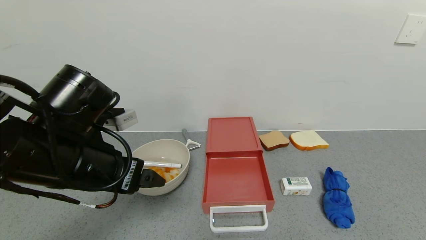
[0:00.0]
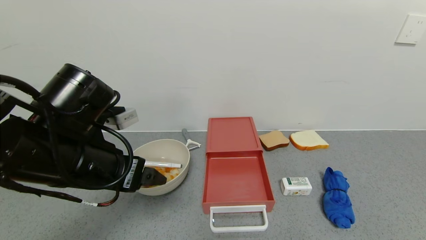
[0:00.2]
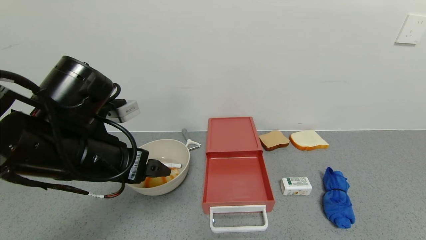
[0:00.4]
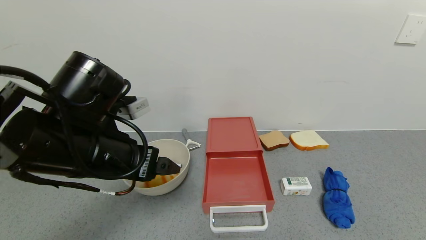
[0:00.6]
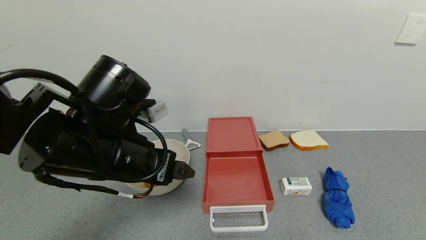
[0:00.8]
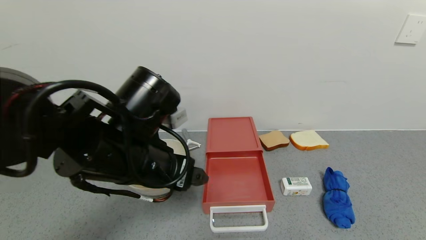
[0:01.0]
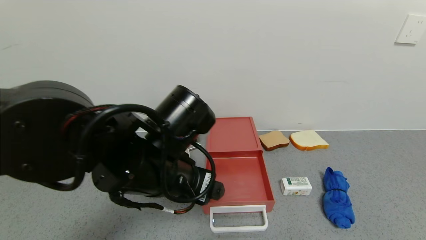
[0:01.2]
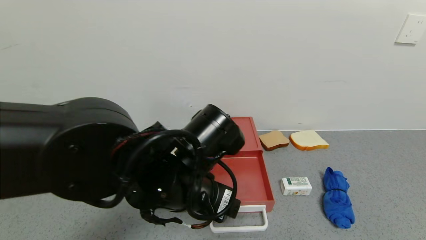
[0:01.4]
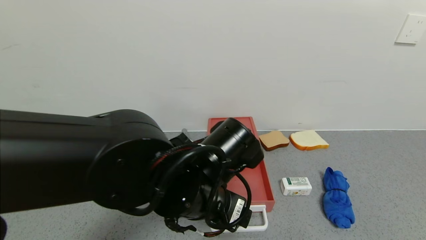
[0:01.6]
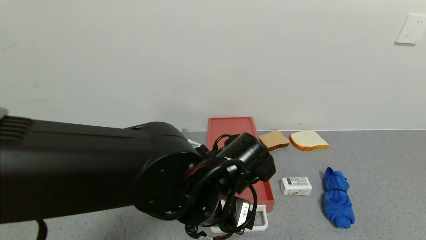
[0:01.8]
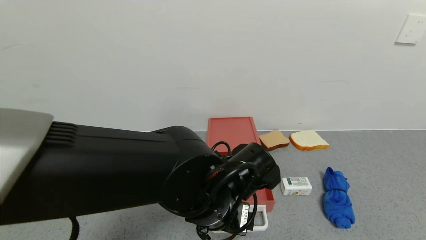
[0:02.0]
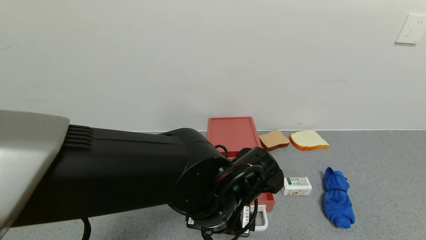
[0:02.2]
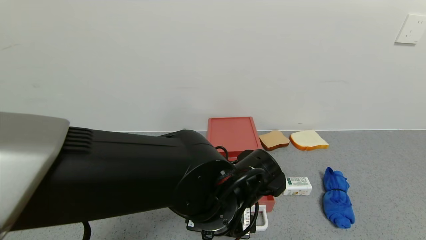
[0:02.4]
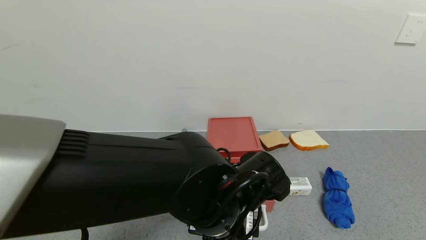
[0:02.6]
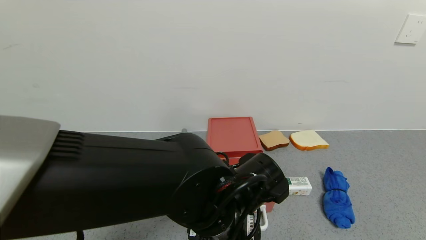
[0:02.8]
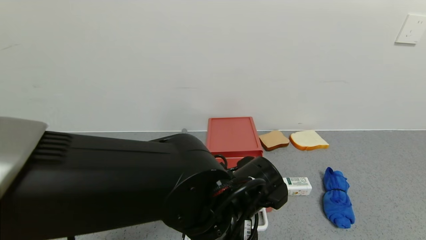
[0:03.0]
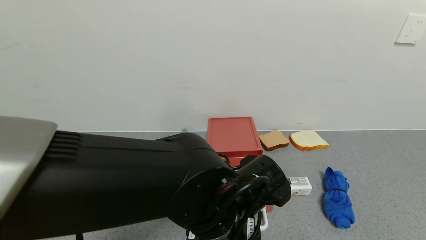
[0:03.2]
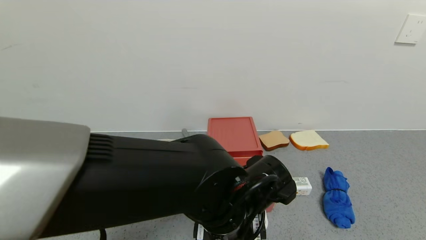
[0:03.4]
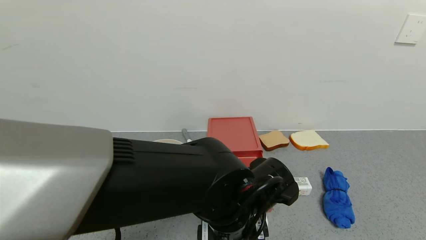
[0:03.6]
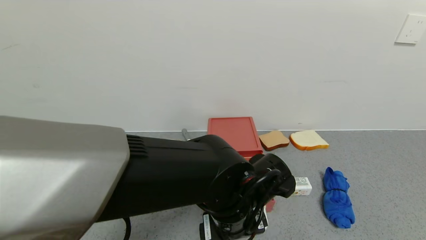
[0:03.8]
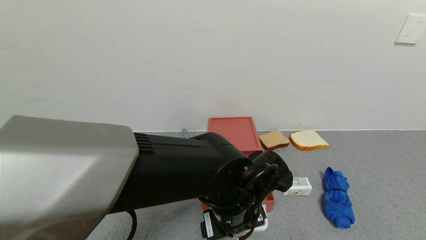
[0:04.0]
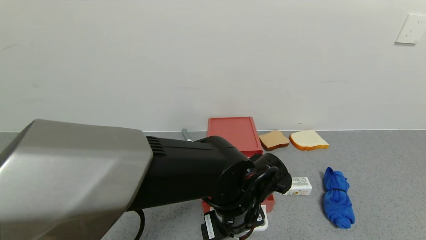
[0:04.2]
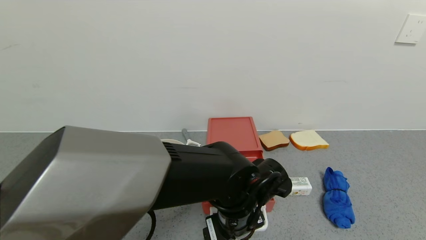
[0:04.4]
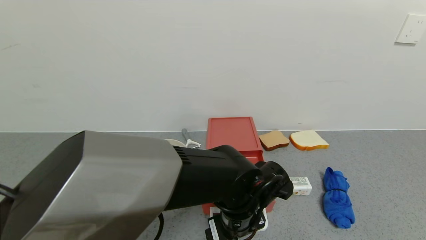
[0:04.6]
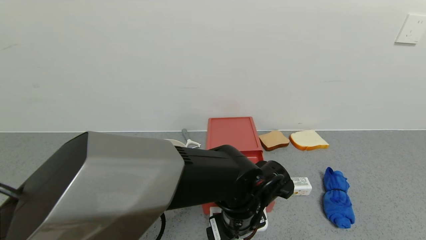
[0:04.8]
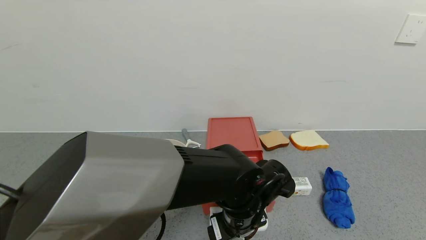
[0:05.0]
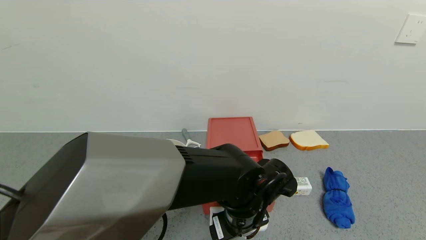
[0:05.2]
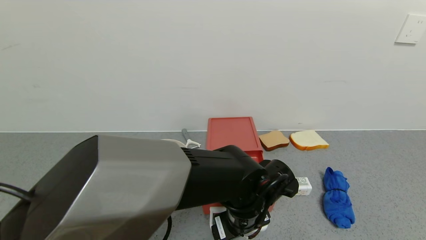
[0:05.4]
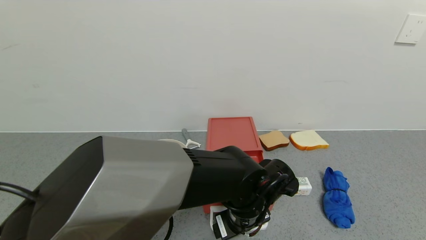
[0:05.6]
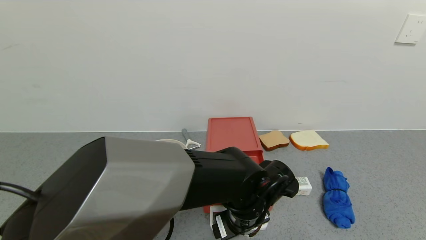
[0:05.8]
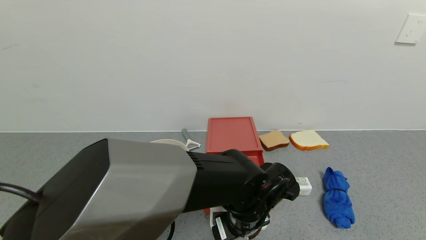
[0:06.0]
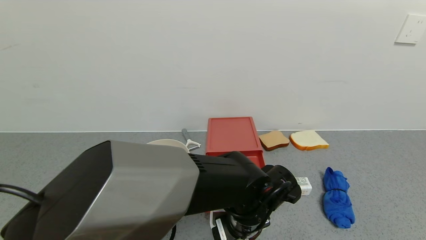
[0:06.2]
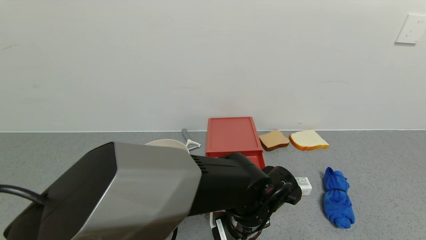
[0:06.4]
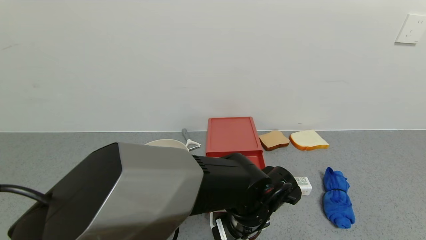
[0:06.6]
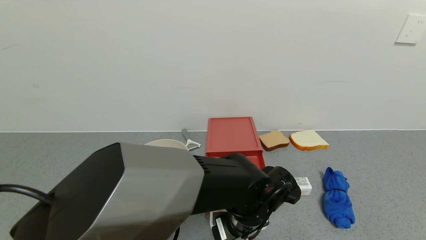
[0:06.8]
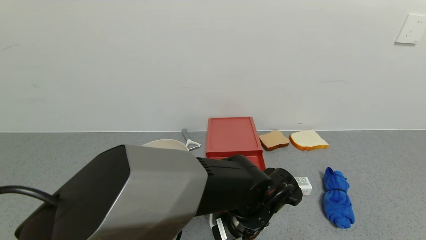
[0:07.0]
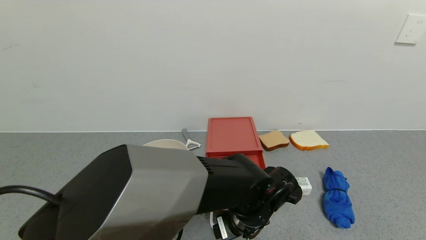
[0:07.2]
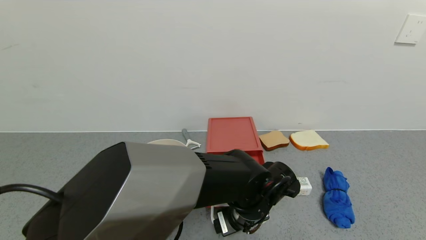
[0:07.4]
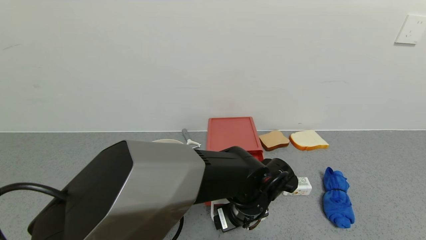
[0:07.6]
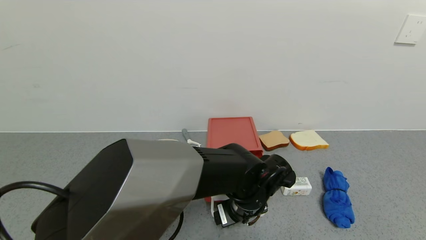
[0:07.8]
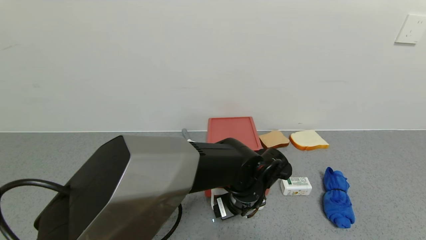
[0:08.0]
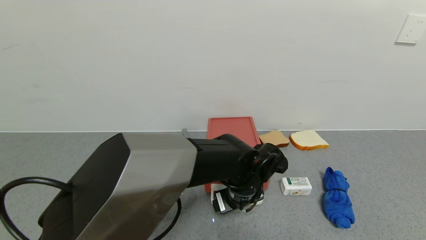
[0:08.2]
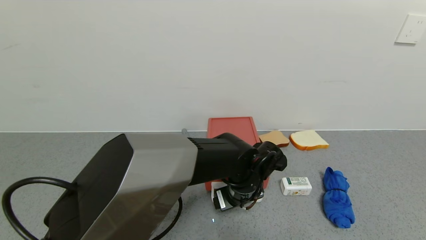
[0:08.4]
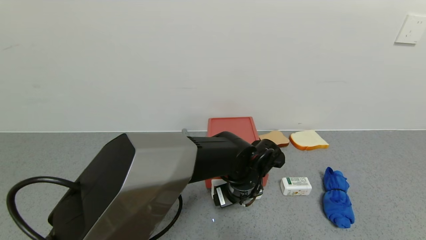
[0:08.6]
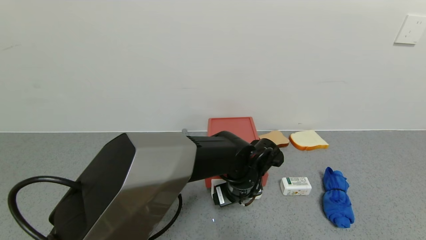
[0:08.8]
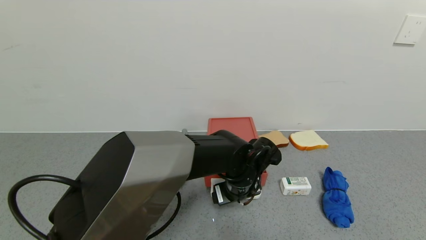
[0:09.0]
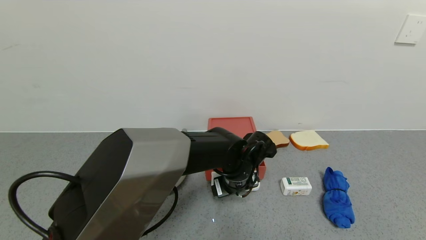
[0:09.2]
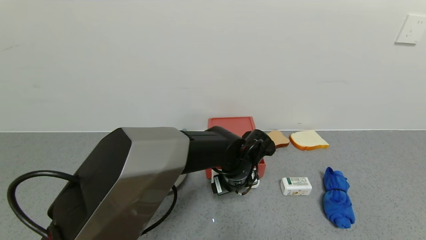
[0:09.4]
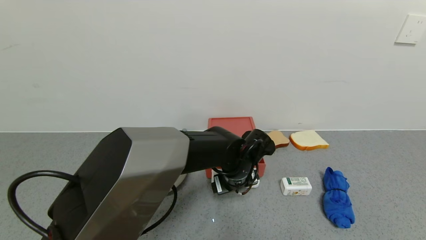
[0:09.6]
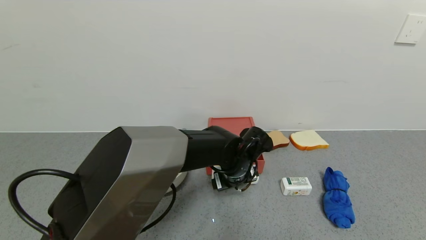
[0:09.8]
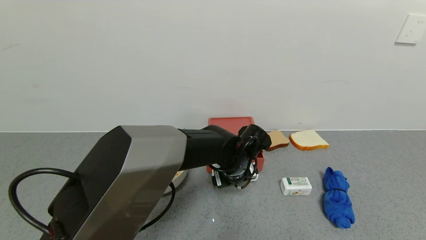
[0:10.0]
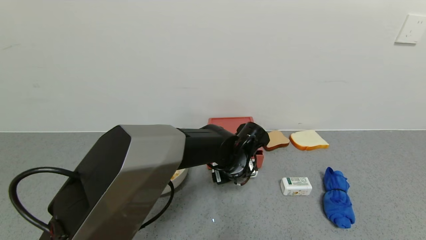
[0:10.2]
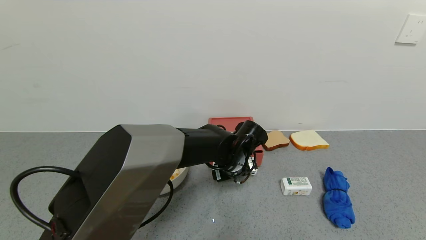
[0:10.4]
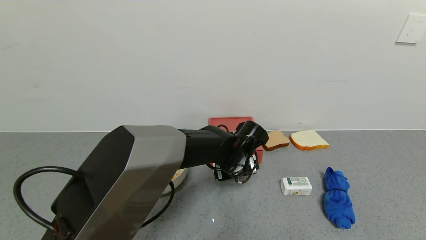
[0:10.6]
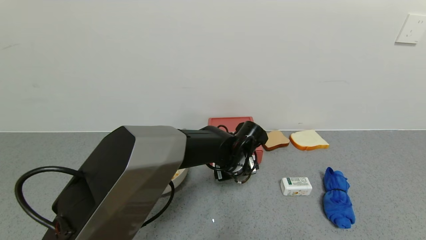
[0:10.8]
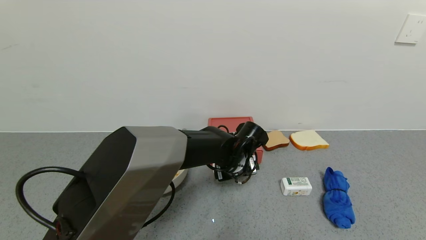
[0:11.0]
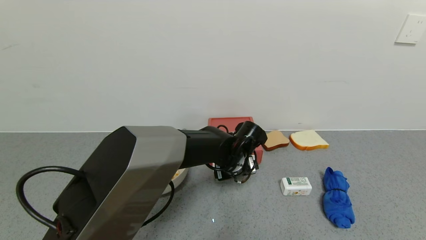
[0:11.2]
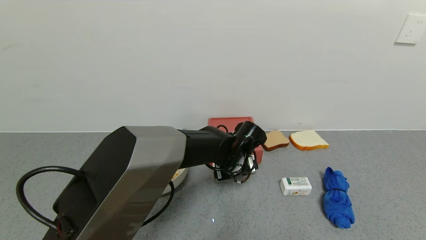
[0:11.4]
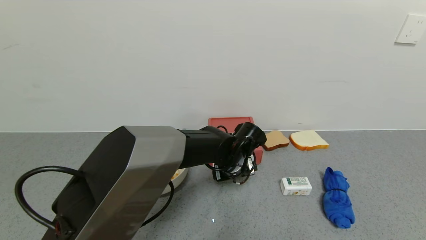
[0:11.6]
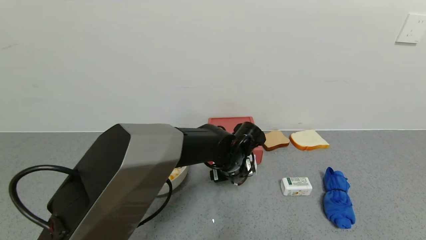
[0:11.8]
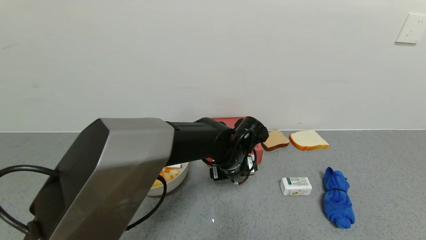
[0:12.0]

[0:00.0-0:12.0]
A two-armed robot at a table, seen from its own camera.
Task of the whole recording: use the gripper to open the drawer and close the red drawer.
Step, 0:00.0 to 0:12.0: Close the red drawer with the left gripper.
0:00.0 to 0:01.6: The left gripper shifts about 15 cm to the right.
0:03.0 to 0:04.4: The left gripper ends up roughly 5 cm from where it was.
0:04.4 to 0:07.6: The grippers move only a little.
0:07.6 to 0:09.0: The left gripper is displaced forward by some 5 cm.
0:09.0 to 0:12.0: The grippers make only small movements.

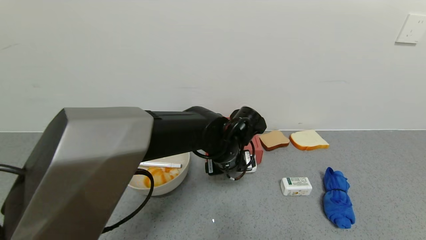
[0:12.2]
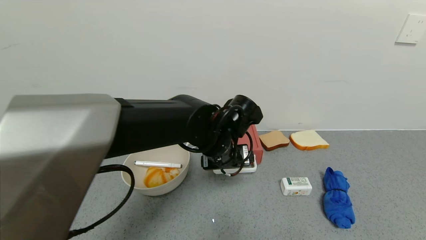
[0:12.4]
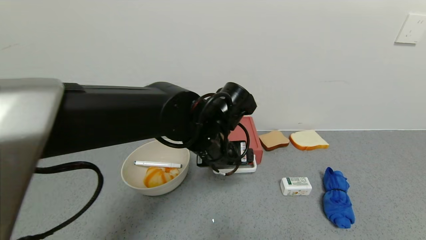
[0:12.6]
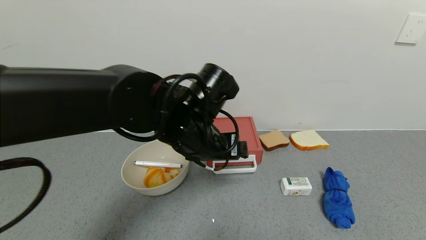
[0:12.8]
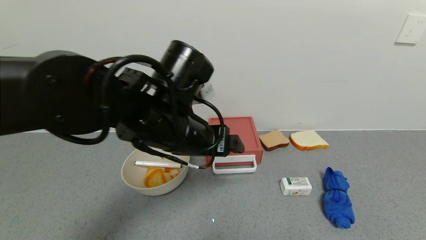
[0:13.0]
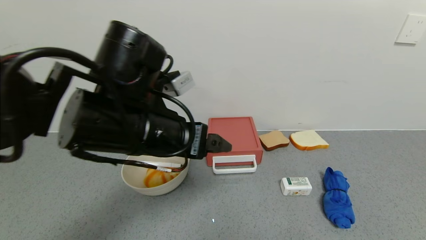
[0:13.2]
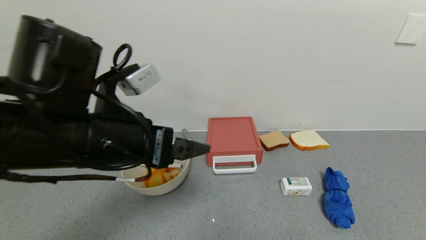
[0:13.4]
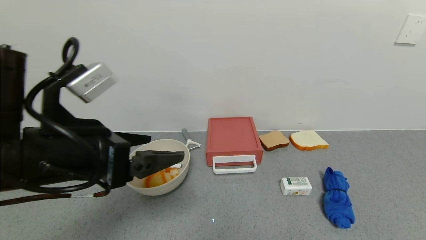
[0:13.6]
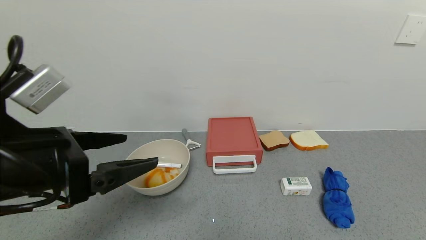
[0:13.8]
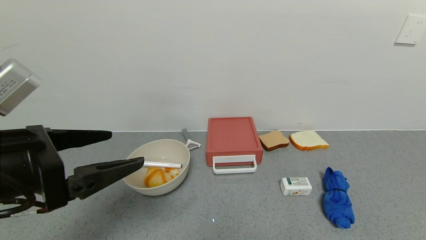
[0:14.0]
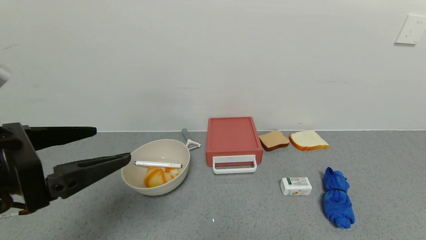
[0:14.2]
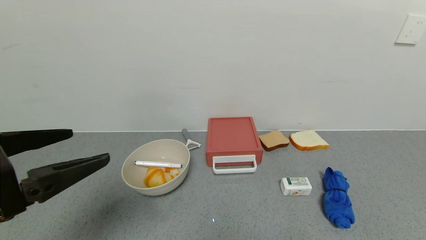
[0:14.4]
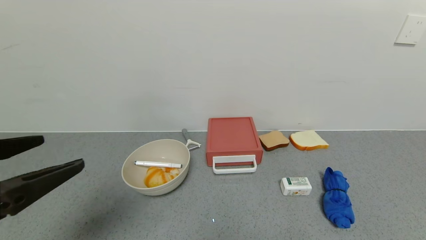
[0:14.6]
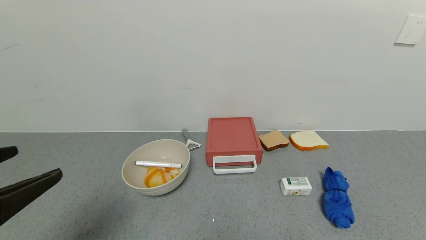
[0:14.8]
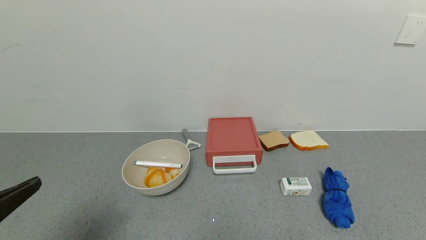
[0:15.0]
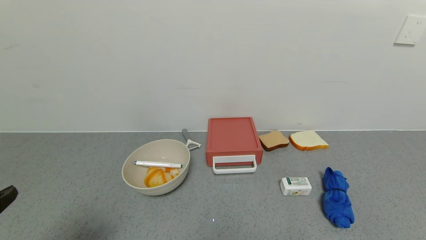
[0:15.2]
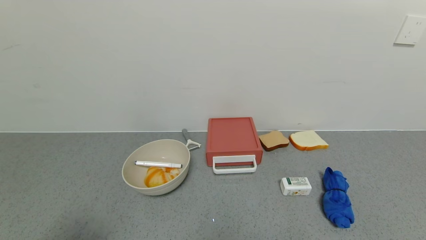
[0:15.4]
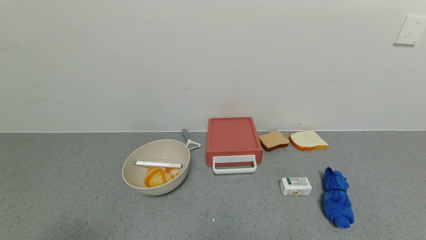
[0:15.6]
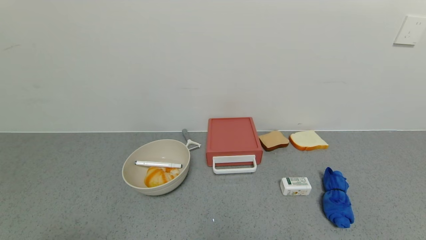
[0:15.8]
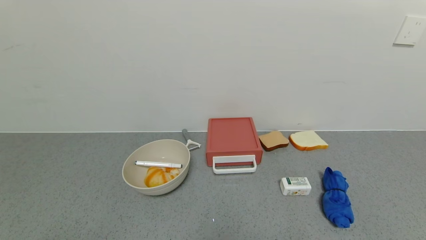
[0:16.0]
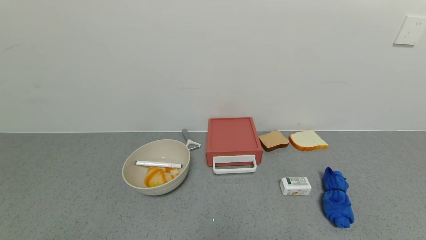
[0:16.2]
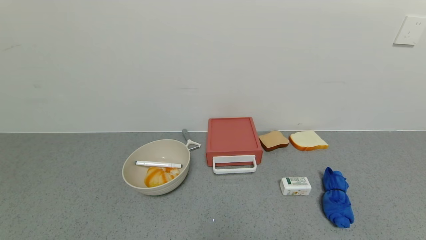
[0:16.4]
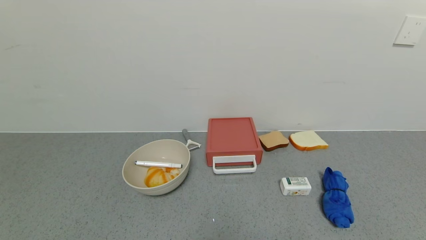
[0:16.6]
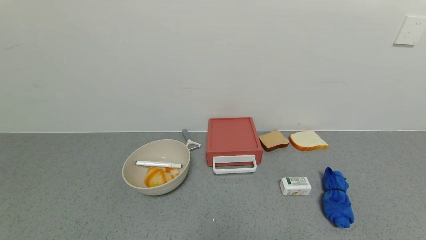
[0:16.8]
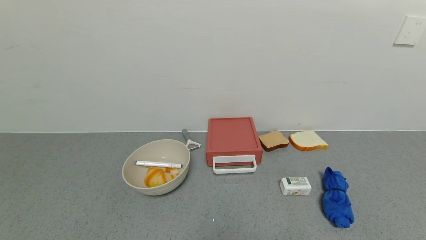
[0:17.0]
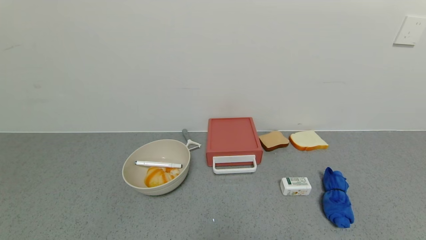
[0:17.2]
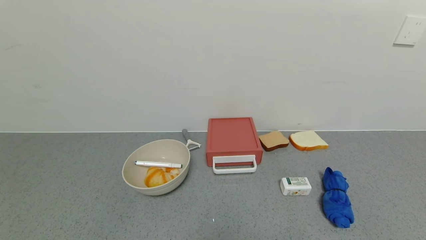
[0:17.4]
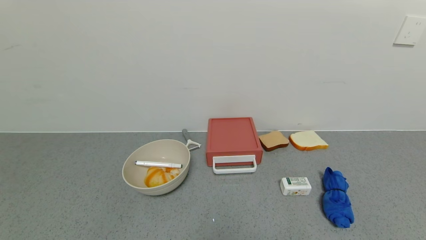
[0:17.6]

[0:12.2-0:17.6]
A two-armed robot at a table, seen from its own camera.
Task of the whole recording: use the gripper to open the drawer and close the red drawer.
0:12.2 to 0:13.6: The left gripper is displaced to the left, backward and upward by roughly 30 cm.
0:13.6 to 0:15.0: The left gripper travels backward and to the left by about 15 cm.
0:15.0 to 0:16.2: The left gripper heads backward, covering about 10 cm.
